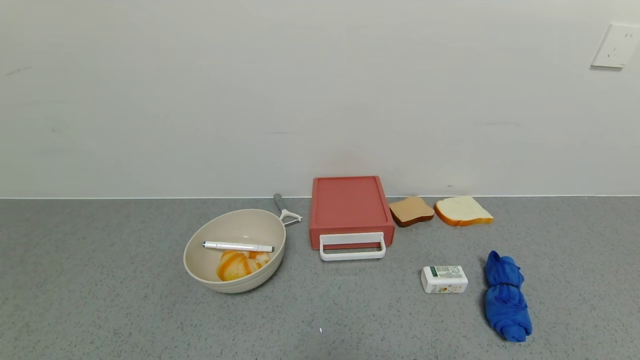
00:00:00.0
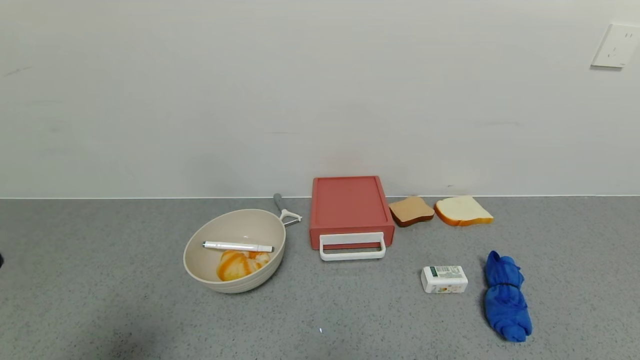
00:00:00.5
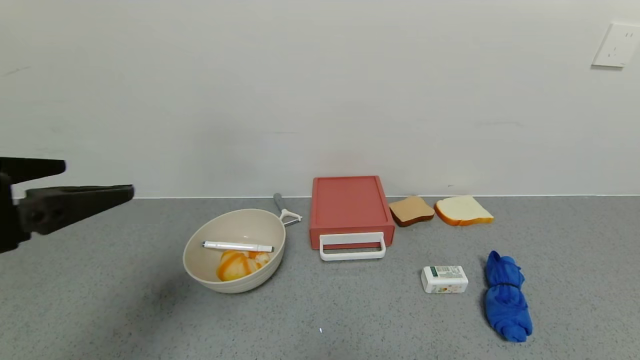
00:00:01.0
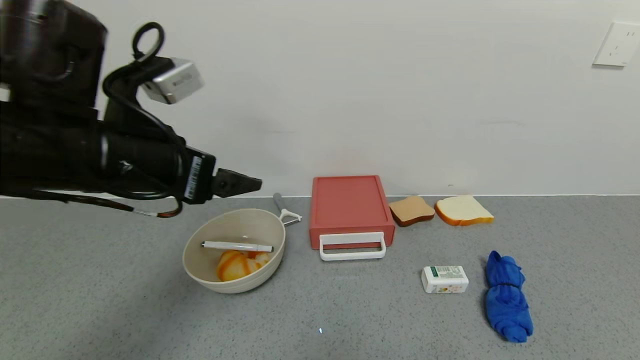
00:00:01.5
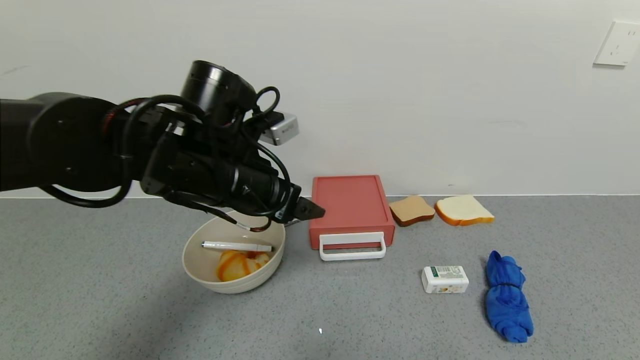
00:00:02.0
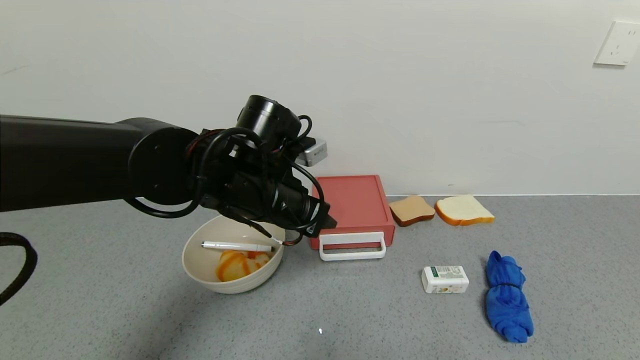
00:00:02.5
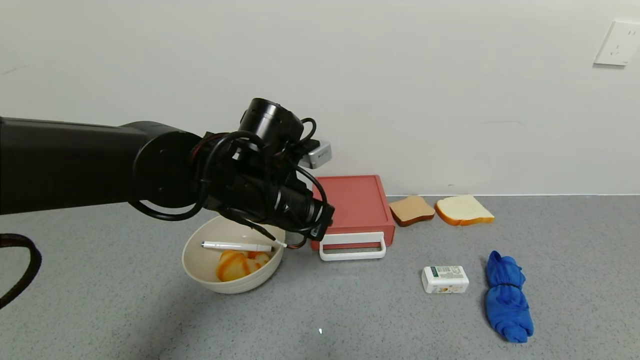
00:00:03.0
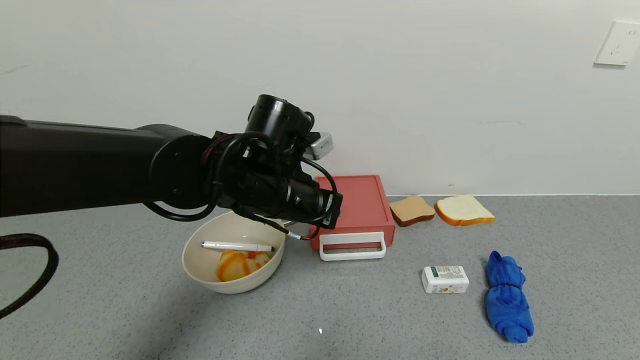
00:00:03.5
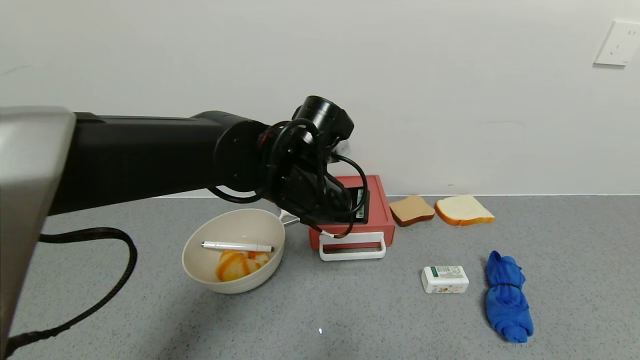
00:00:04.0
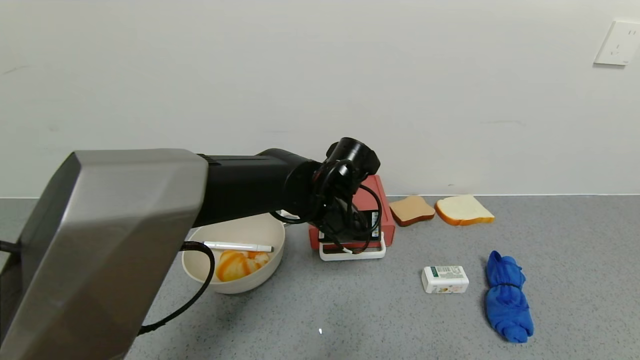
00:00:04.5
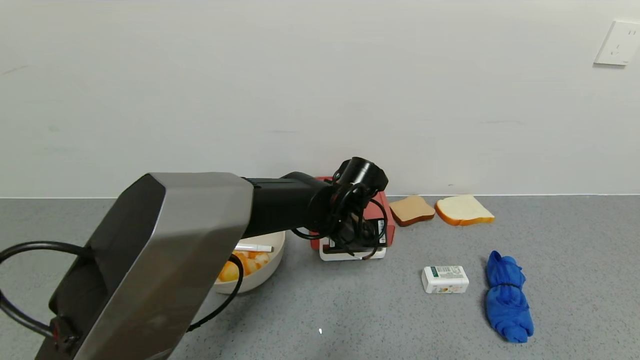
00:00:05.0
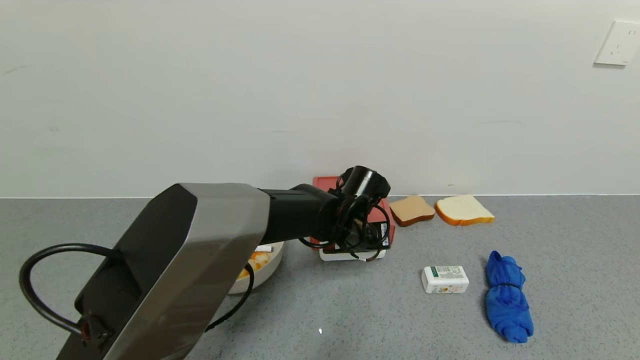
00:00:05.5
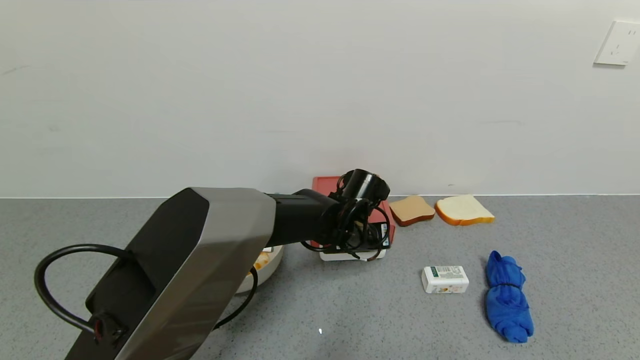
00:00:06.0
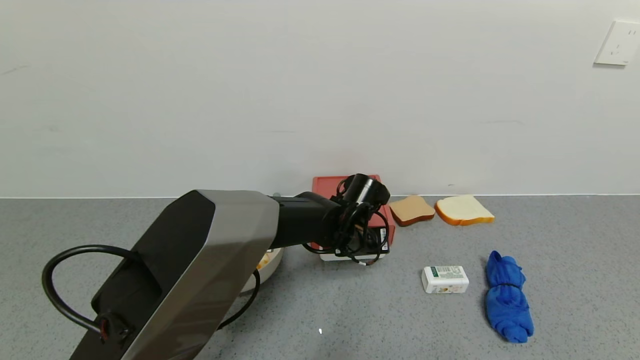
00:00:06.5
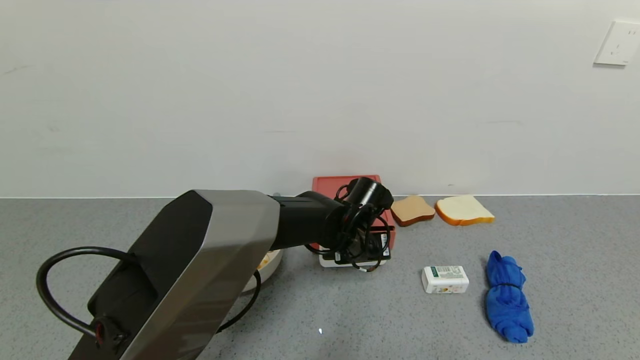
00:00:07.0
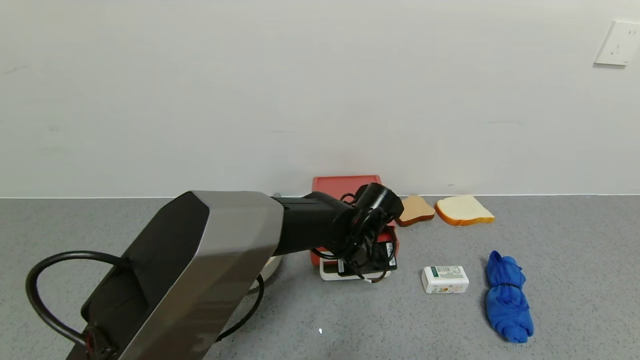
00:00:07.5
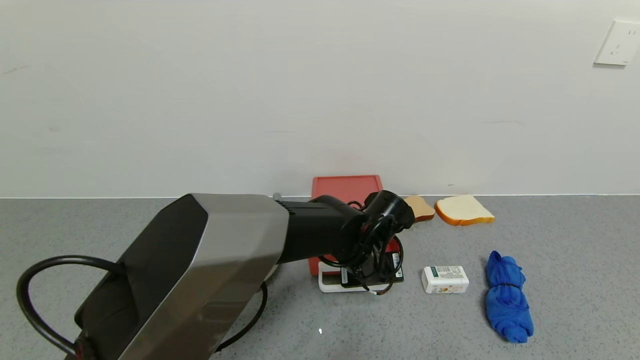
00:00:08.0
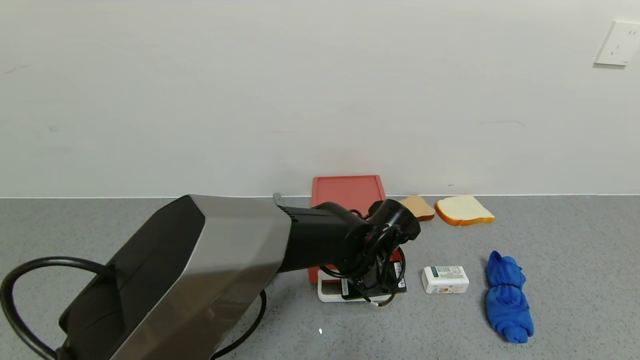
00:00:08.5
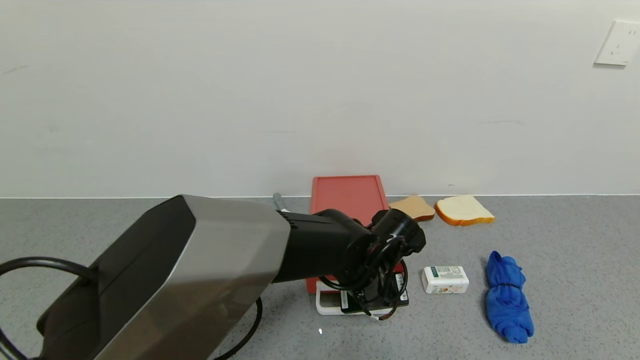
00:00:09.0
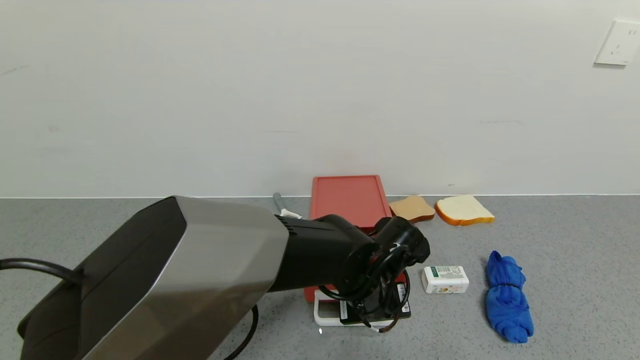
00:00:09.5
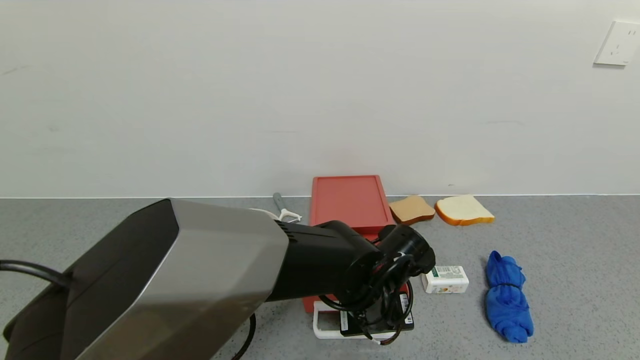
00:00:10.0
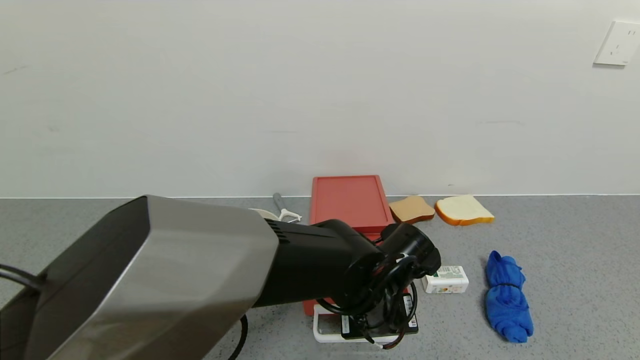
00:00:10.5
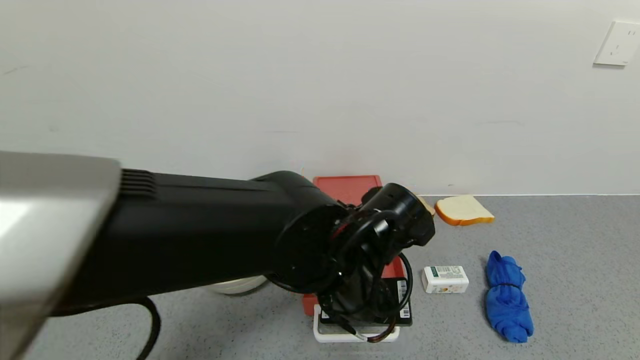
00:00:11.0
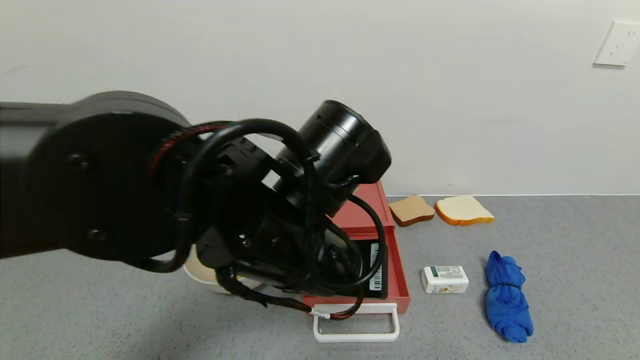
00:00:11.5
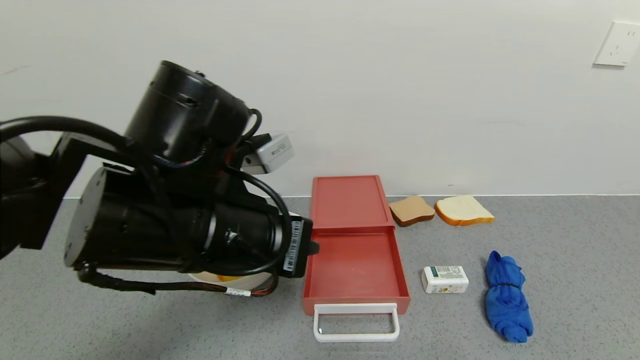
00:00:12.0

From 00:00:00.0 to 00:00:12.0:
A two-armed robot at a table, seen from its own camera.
Task of the whole recording: use the gripper to open the drawer and close the red drawer.
Step, from 00:00:00.0 to 00:00:11.0: Open the red drawer with left gripper.
From 00:00:00.0 to 00:00:02.0: The left gripper is displaced forward and to the right by some 30 cm.
From 00:00:02.0 to 00:00:04.0: The left gripper shifts roughly 10 cm to the right, and closes up.
From 00:00:04.0 to 00:00:06.0: The left gripper is displaced downward, to the right and forward by approximately 15 cm.
From 00:00:06.0 to 00:00:08.0: The left gripper is displaced backward by roughly 5 cm.
From 00:00:08.0 to 00:00:10.0: The left gripper travels backward by about 5 cm.
From 00:00:10.0 to 00:00:12.0: The left gripper travels upward and to the left by approximately 25 cm.

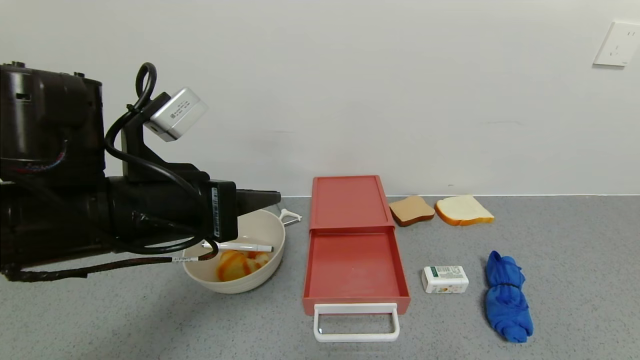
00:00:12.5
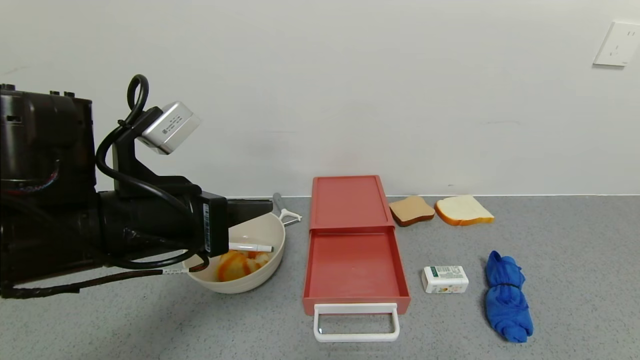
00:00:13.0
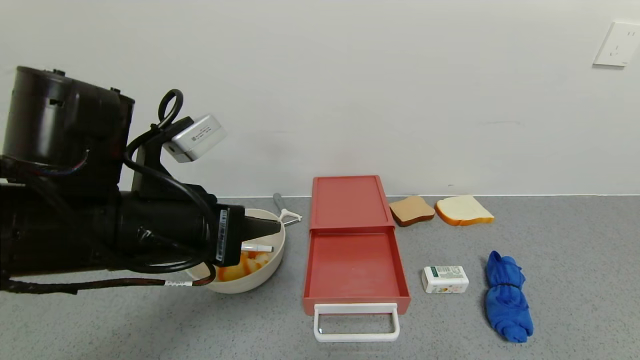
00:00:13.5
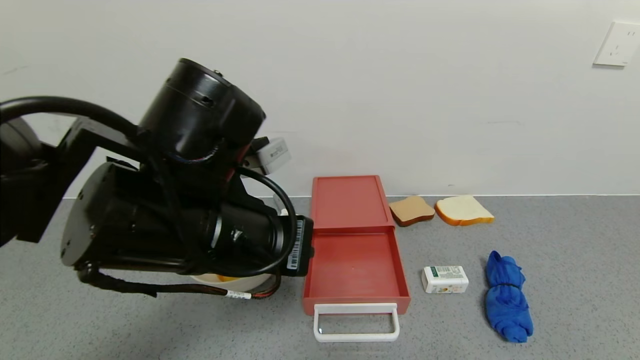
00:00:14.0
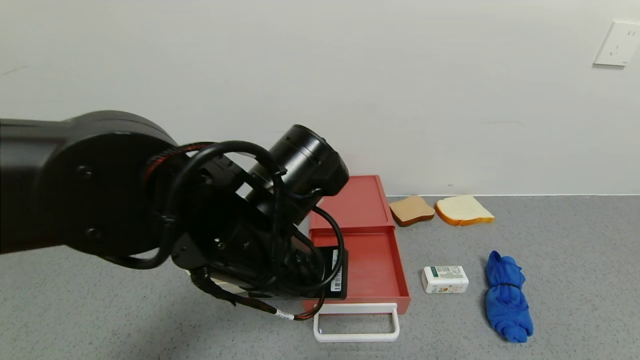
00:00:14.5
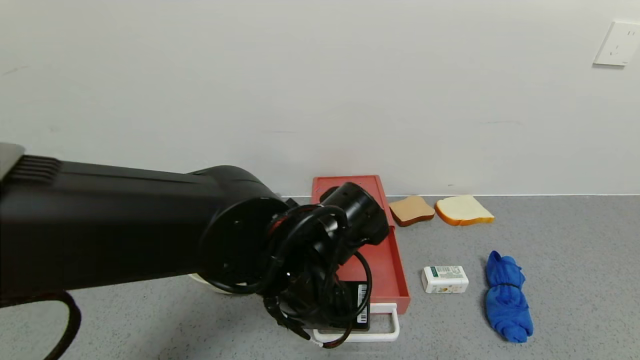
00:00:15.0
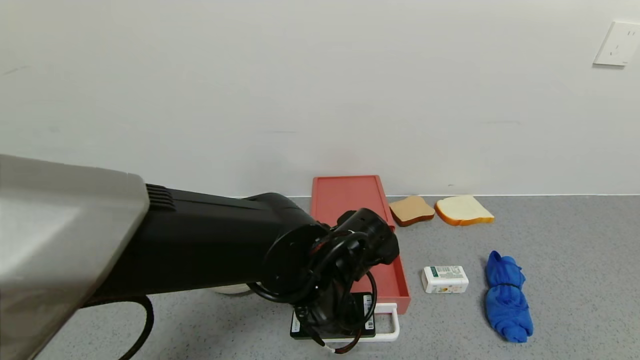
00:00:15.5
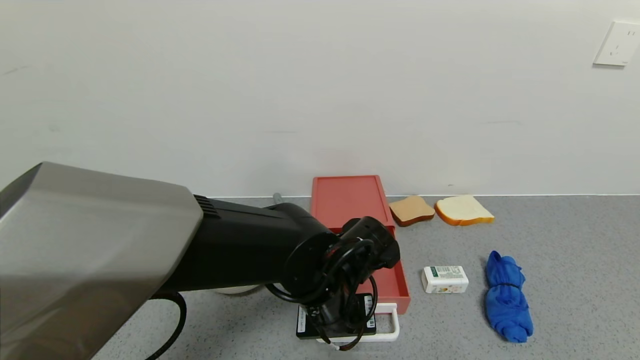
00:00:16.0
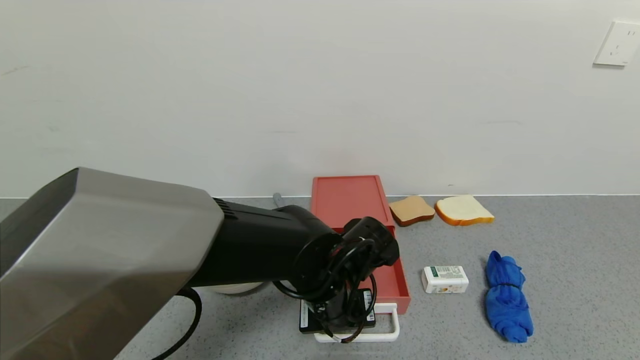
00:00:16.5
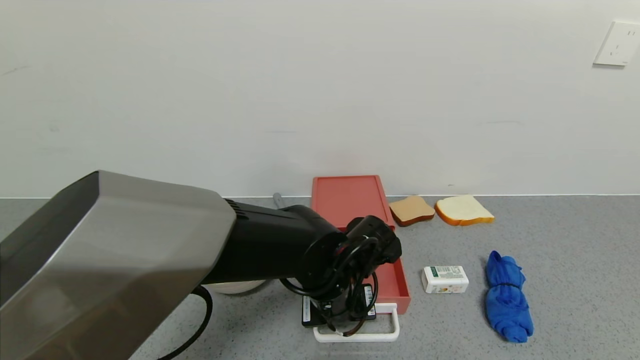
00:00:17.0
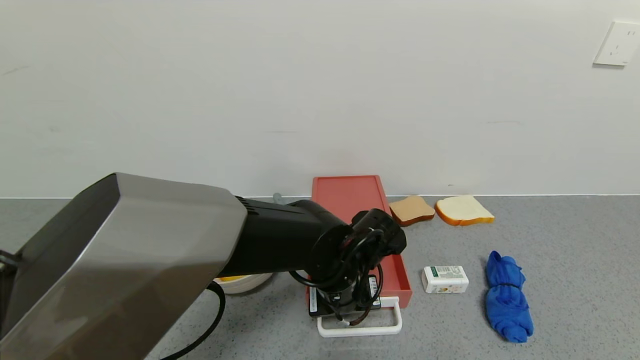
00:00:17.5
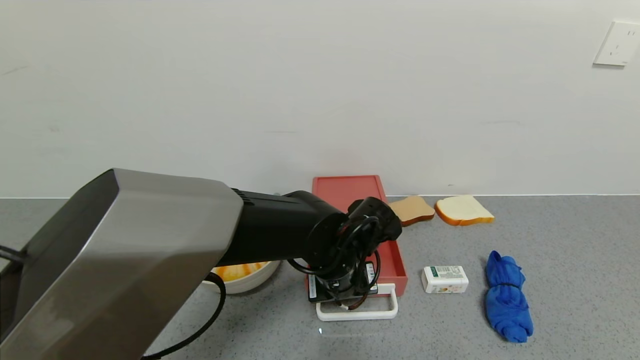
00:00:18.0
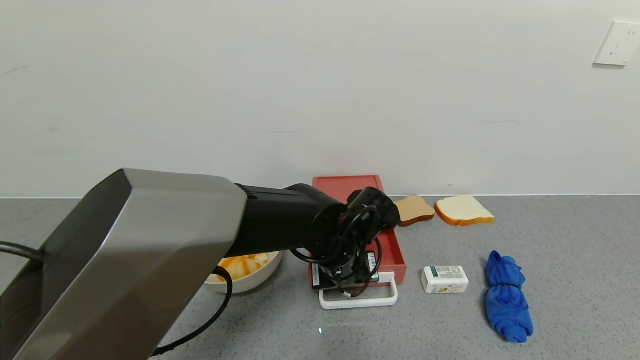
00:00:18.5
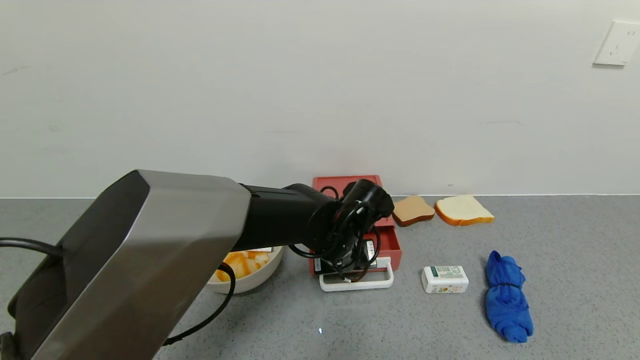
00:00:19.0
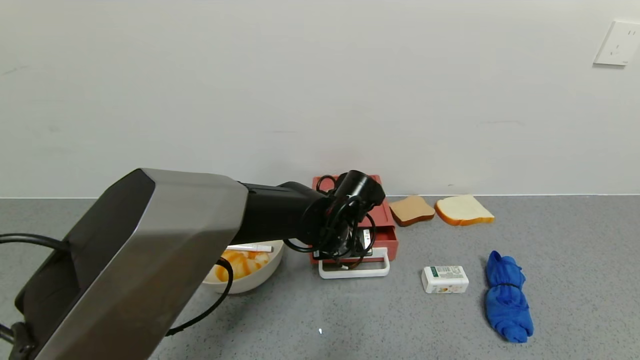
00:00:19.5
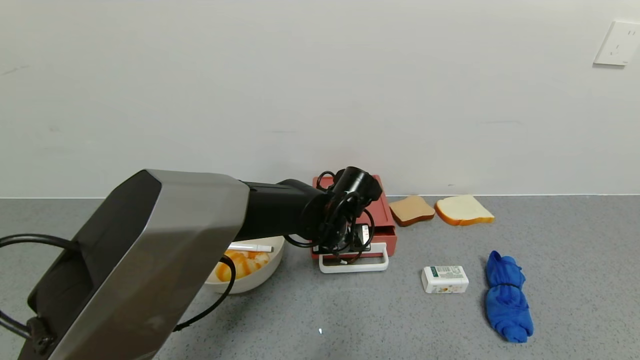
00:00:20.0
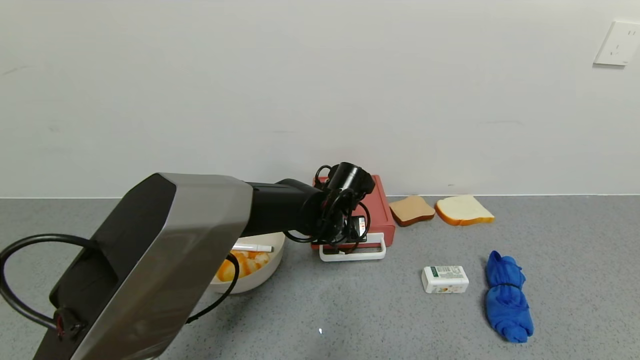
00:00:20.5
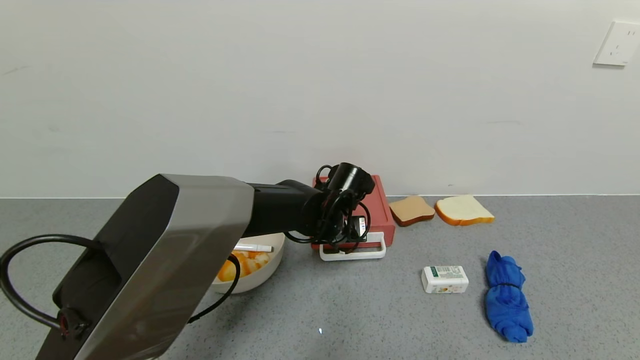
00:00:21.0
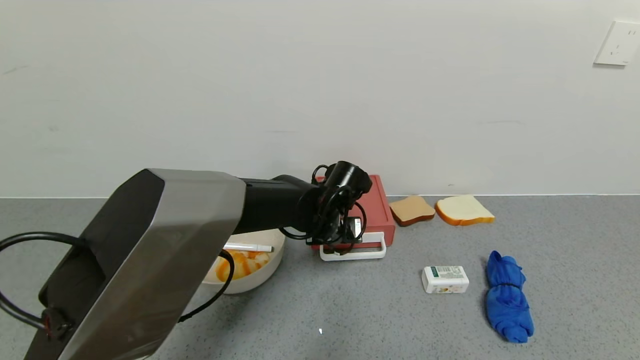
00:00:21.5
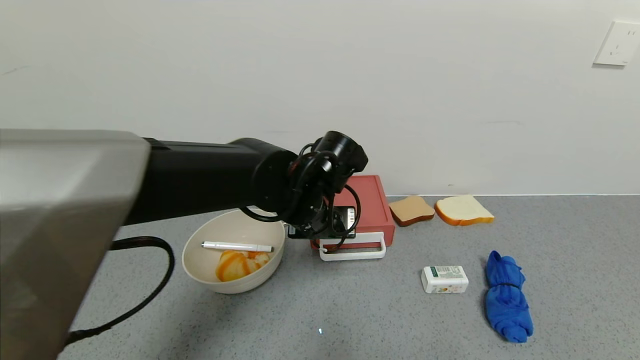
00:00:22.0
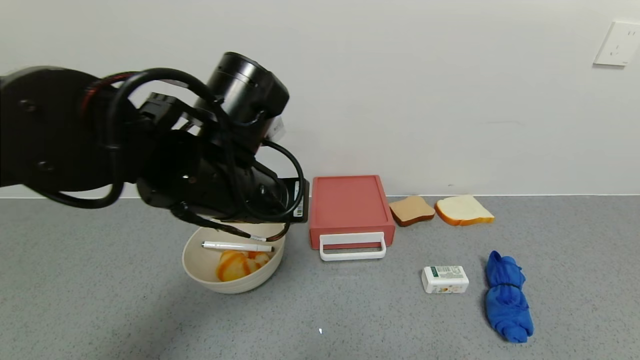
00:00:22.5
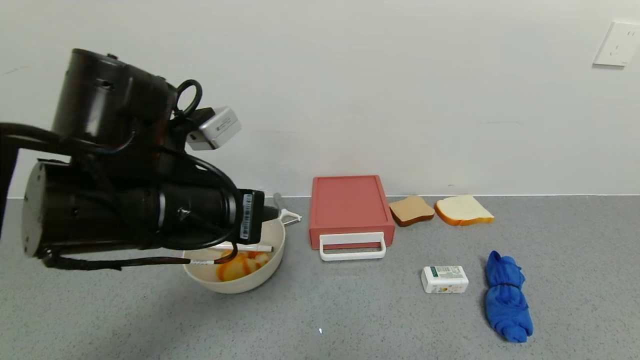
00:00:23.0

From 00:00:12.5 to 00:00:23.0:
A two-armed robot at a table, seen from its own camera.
Task of the whole recording: use the gripper to open the drawer and close the red drawer.
Step, from 00:00:12.5 to 00:00:22.0: Close the red drawer with left gripper.
From 00:00:12.5 to 00:00:14.5: The left gripper shifts some 10 cm to the right.
From 00:00:14.5 to 00:00:16.5: The left gripper moves downward and to the right, roughly 15 cm.
From 00:00:16.5 to 00:00:19.0: The left gripper is displaced forward by roughly 5 cm.
From 00:00:19.0 to 00:00:21.0: The left gripper shifts about 5 cm forward.
From 00:00:21.0 to 00:00:23.0: The left gripper travels backward, upward and to the left by about 25 cm.
